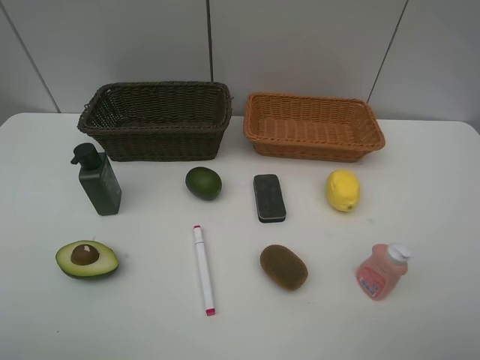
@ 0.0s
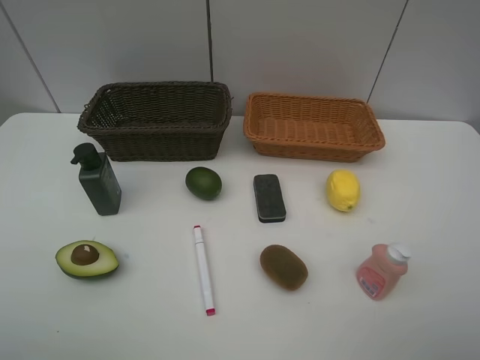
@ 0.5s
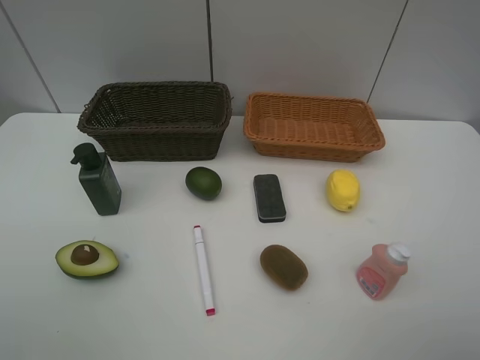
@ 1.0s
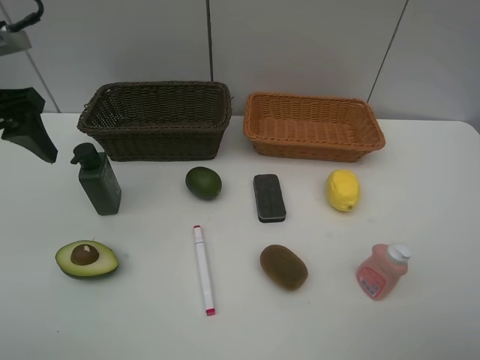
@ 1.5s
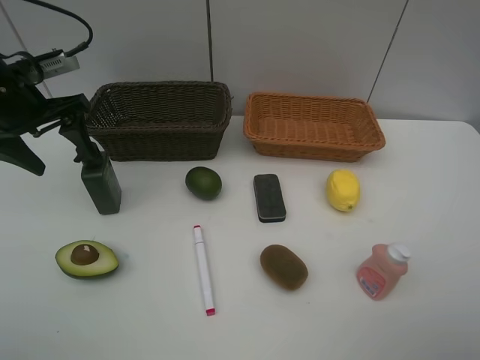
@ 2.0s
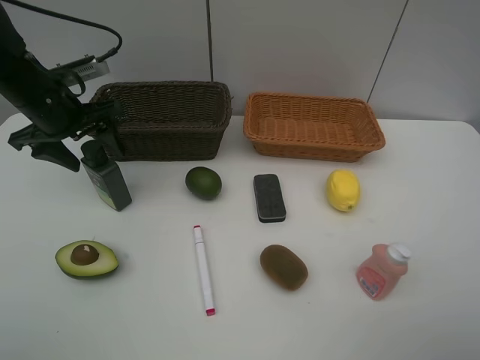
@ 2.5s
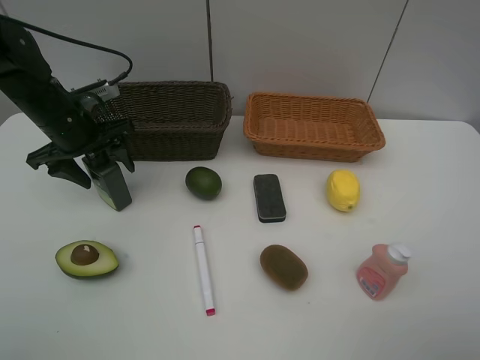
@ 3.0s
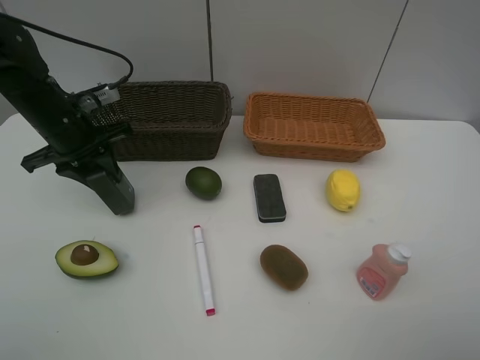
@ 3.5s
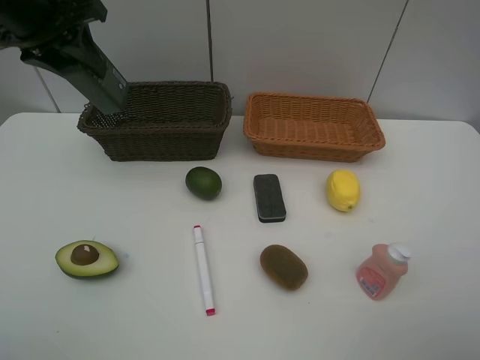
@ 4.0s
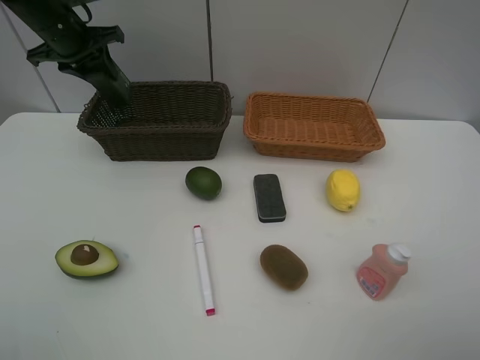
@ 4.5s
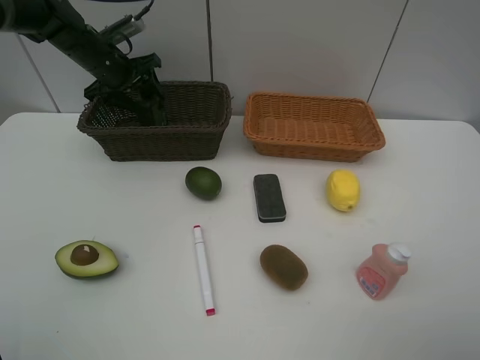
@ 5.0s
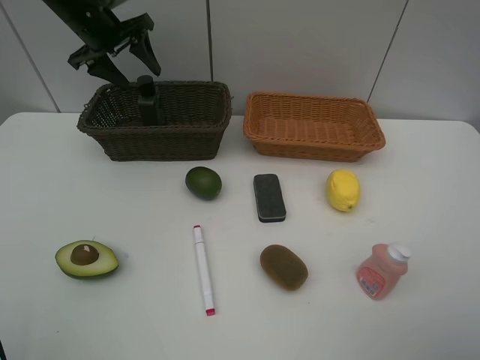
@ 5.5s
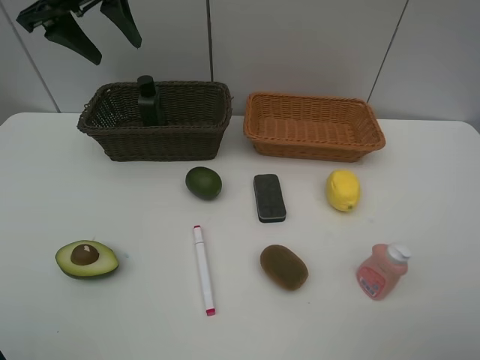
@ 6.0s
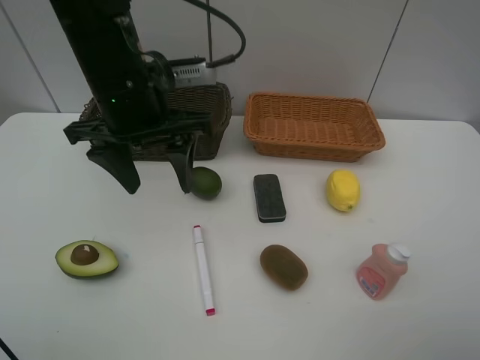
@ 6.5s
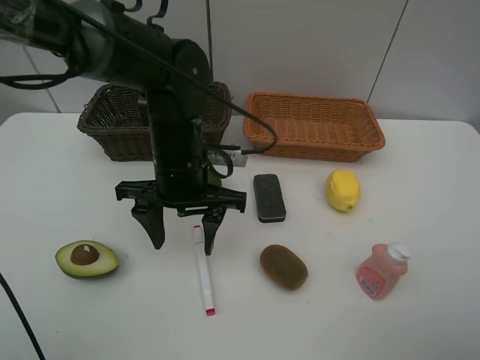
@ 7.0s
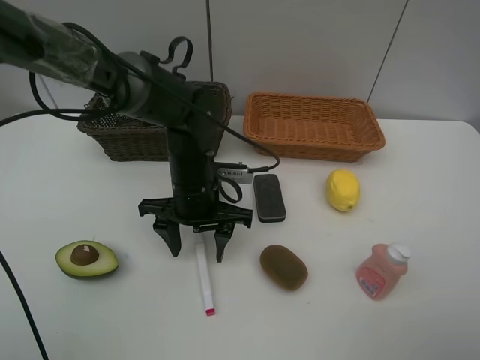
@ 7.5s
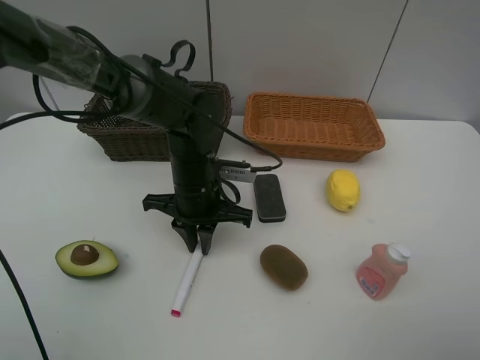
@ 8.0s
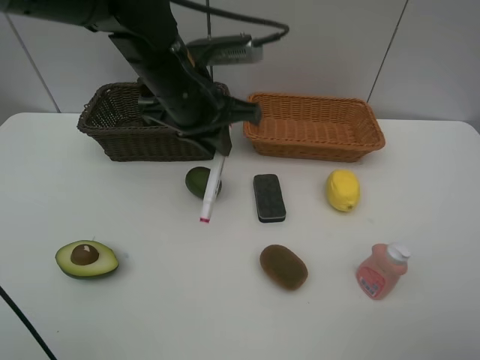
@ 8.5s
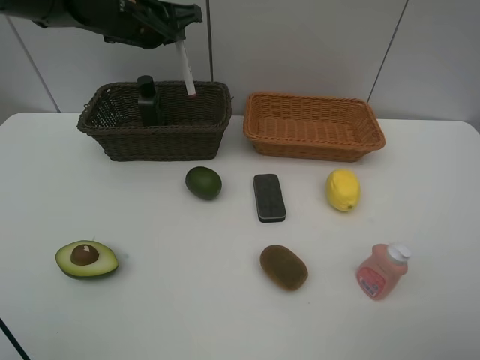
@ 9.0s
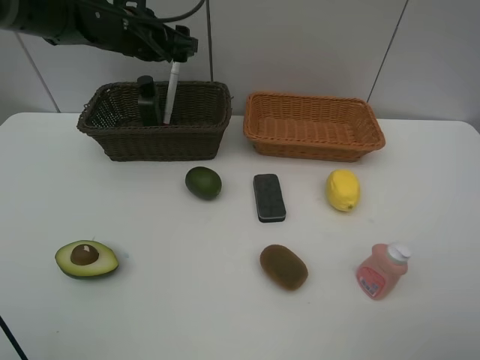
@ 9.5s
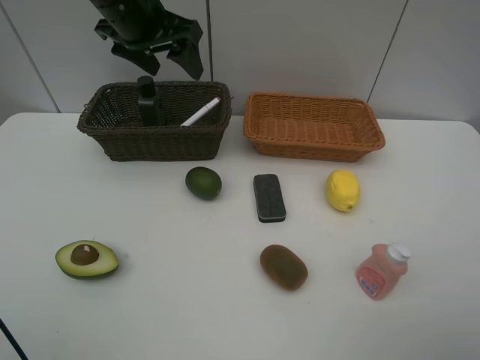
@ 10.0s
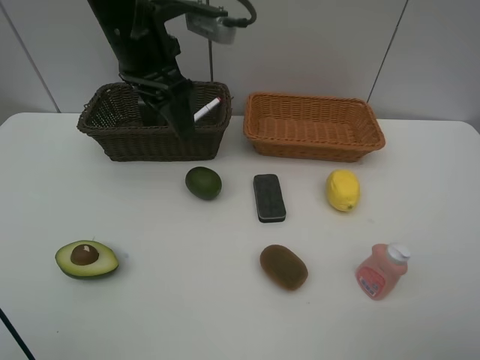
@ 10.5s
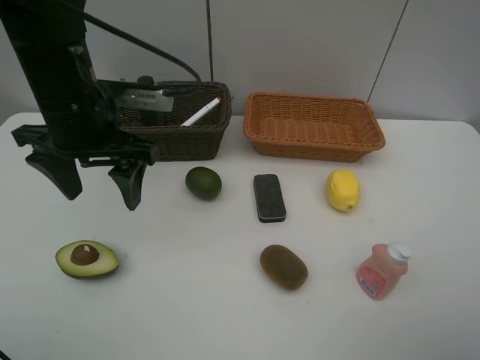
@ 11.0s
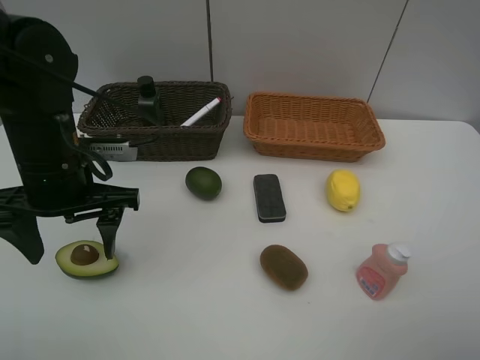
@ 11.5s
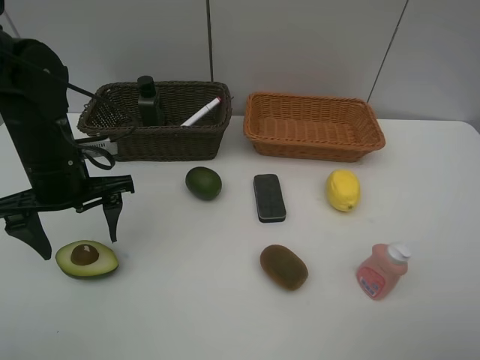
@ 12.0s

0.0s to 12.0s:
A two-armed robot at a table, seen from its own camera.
Task of the whole recording: Place multiple objects separately in different baskets.
Step, 0.0s to 3.5s: Pick up the hard facial cleanser with left gripper.
Step, 4.0s to 5.0s: Place the hard facial cleanser in the dark basket with left gripper.
Step, 5.5s to 8.0s: Pick up the red marker with left gripper.
Step, 8.5s to 9.5s: Place the red marker in the dark basket with left gripper.
0.0s to 2.0s: The left gripper moves forward, some 35 cm.
2.0s to 4.0s: The left gripper is displaced upward by roughly 10 cm, and closes.
4.0s to 6.0s: The left gripper travels downward and back again, some 15 cm each way, and opens its fingers.
6.0s to 8.0s: The left gripper heads downward, to the right and backward, covering approximately 30 cm, and closes its fingers.
8.0s to 10.0s: The left gripper goes approximately 25 cm upward, forward and to the left, and opens up.
10.0s to 12.0s: The left gripper shifts about 20 cm downward, backward and to the left.

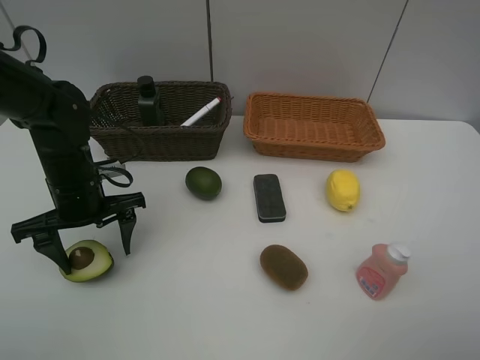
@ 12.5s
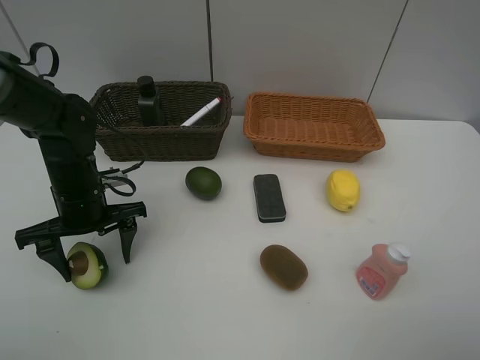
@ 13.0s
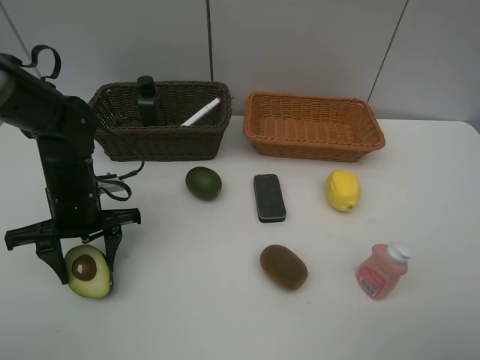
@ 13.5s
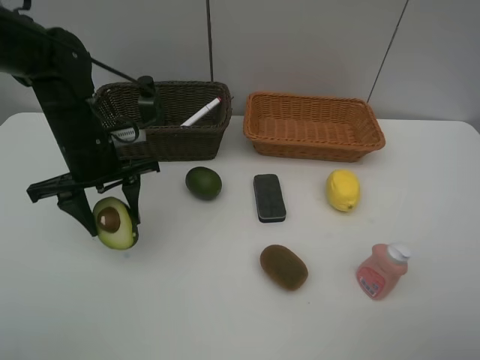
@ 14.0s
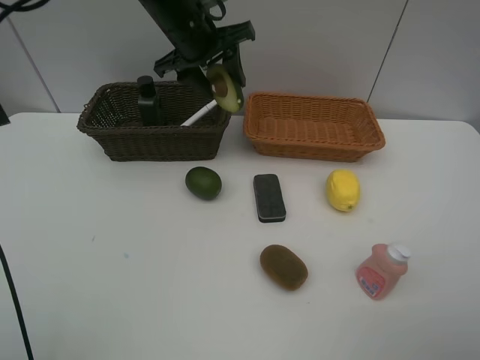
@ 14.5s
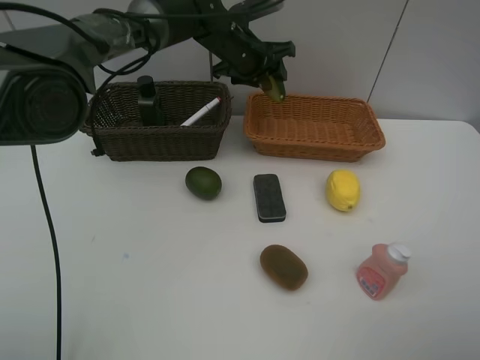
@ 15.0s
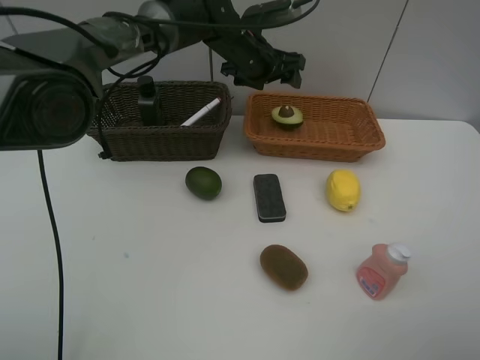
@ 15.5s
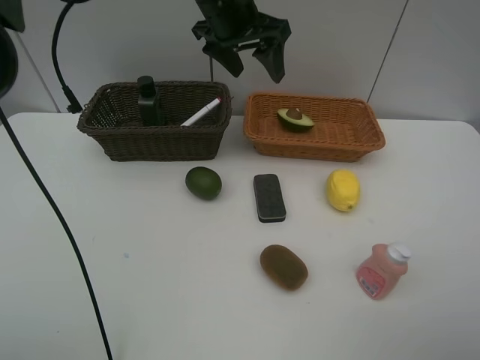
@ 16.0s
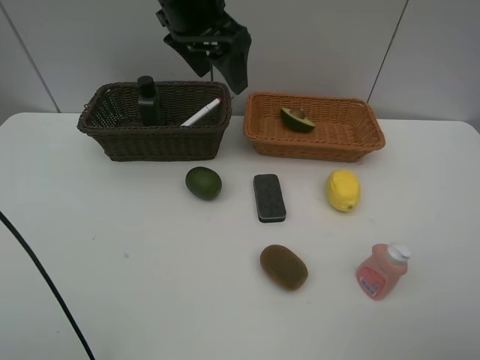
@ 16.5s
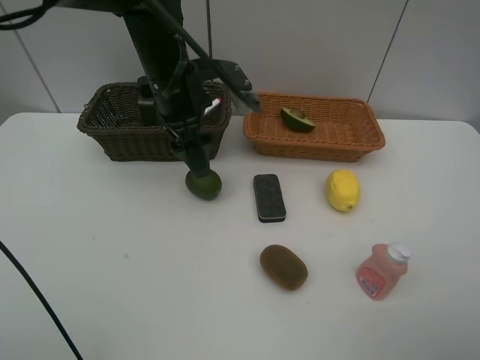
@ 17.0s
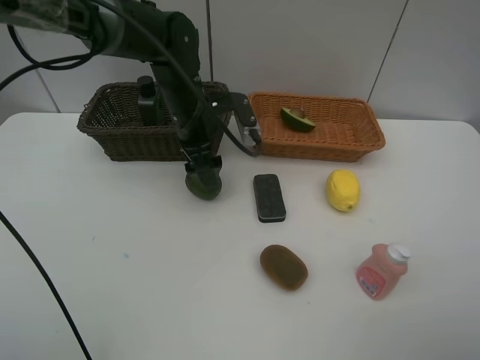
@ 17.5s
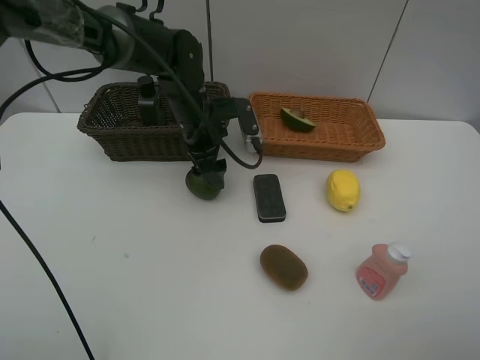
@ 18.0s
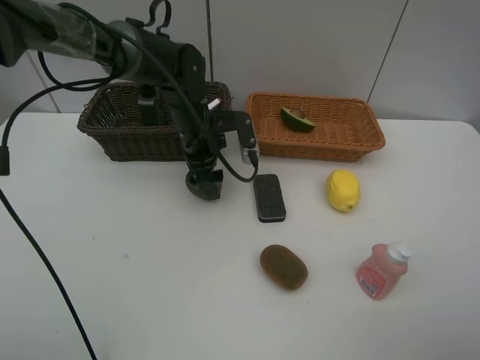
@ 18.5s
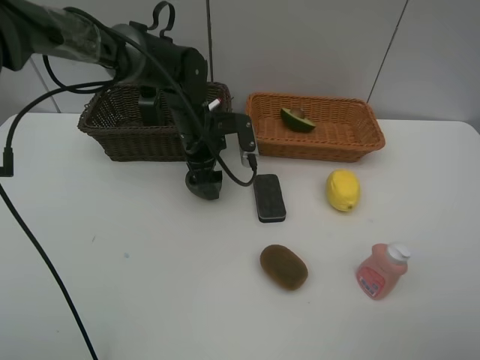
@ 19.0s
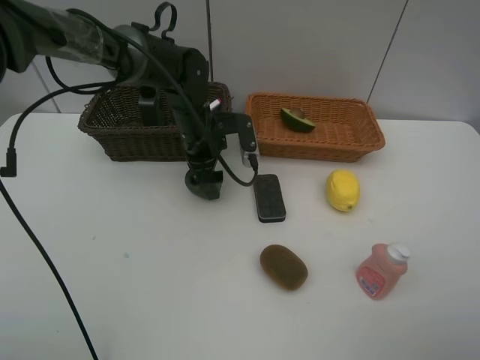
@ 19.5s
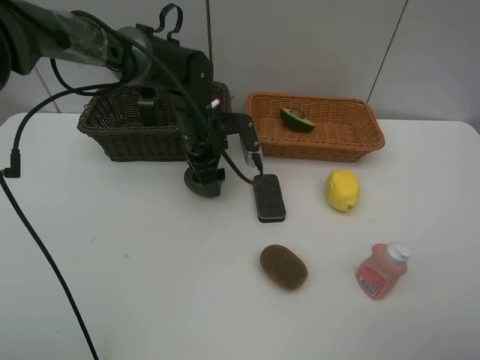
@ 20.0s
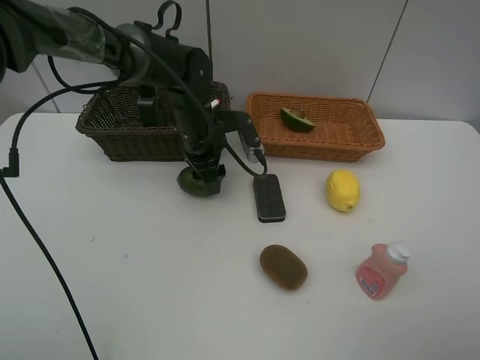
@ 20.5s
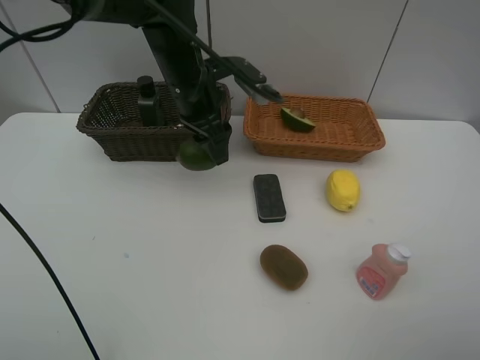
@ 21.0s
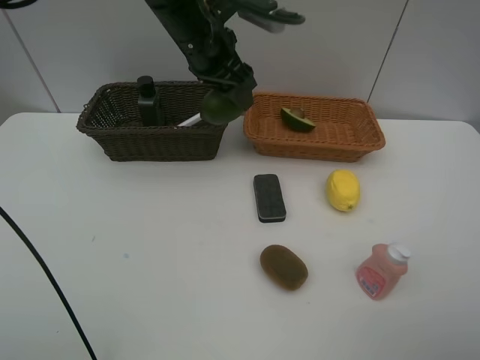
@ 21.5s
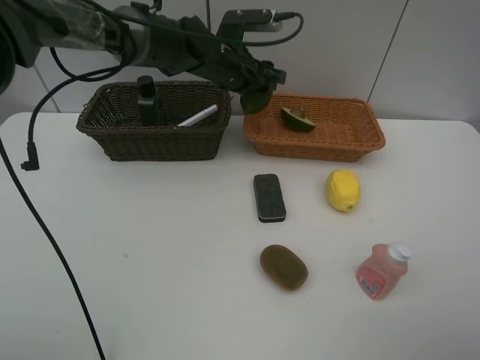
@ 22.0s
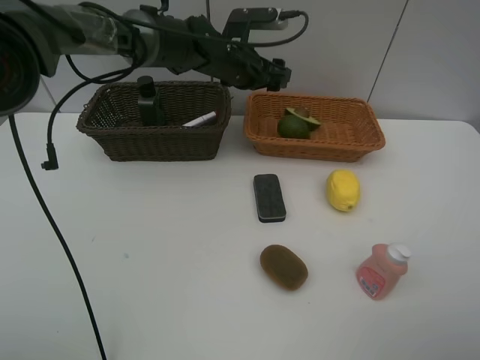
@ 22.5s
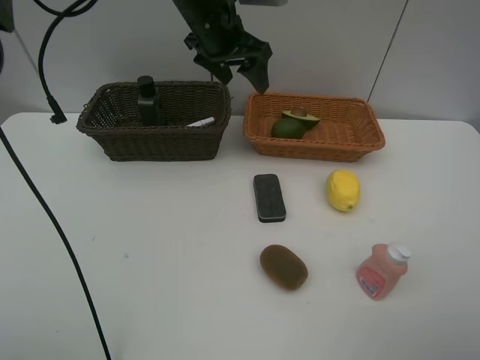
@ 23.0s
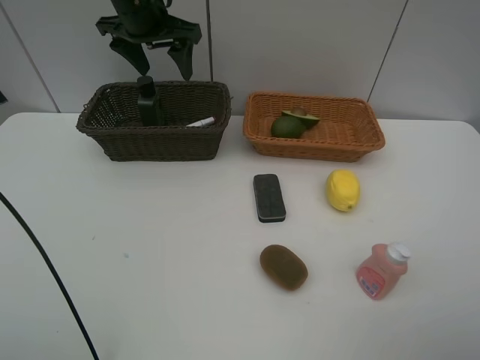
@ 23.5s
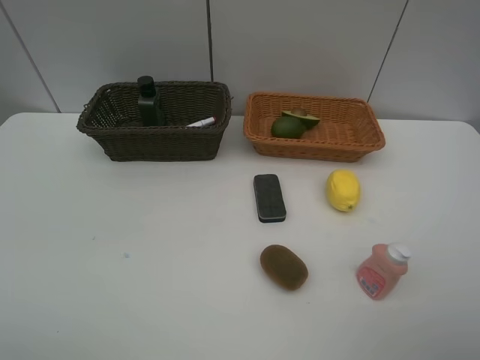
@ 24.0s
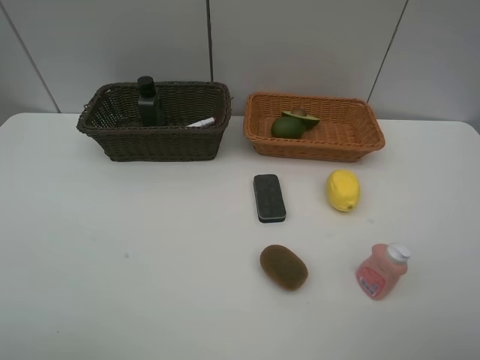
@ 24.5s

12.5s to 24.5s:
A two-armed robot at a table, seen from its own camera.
Task of the whole recording: Place multiple objects separately in different baskets.
Step, 14.0s to 15.0s: Place the avocado in the light basket with left gripper.
Step, 15.5s to 20.5s: Pick up the lime with left gripper.
Step, 21.0s to 22.0s: Place the lime in the light basket with left gripper.
12.5s to 14.5s: The left gripper shifts some 25 cm forward, upward and to the right.
14.5s to 16.5s: The left gripper travels backward and upward by some 10 cm.
16.5s to 18.5s: The left gripper heads downward, covering roughly 20 cm.
18.5s to 20.5s: The grippers make only small movements.
20.5s to 22.5s: The left gripper is displaced forward and upward by approximately 10 cm.
22.5s to 24.5s: The left gripper travels backward and to the left by about 60 cm.

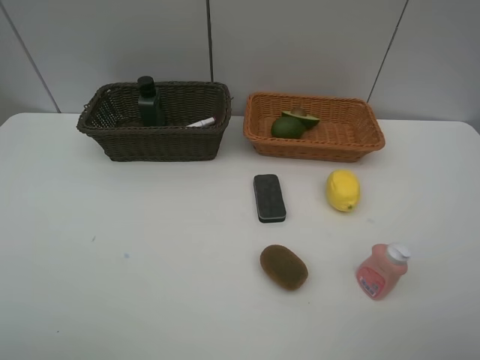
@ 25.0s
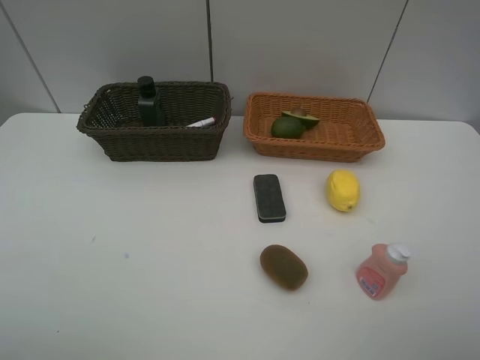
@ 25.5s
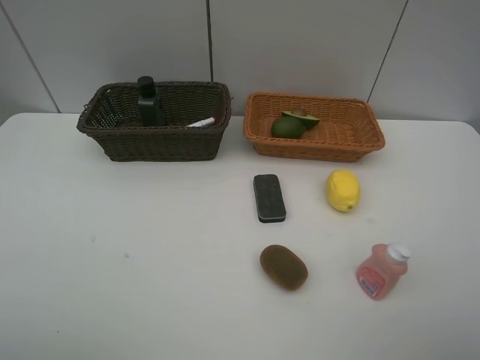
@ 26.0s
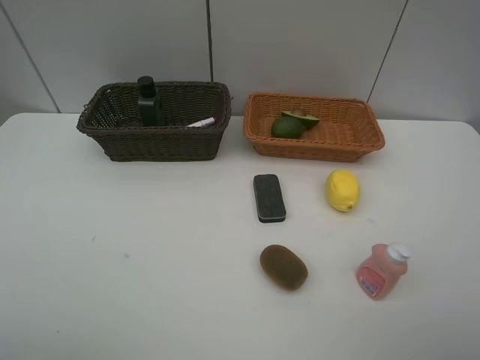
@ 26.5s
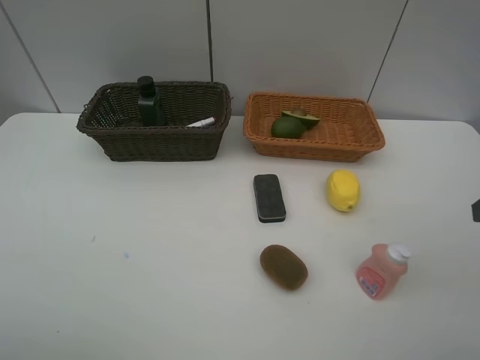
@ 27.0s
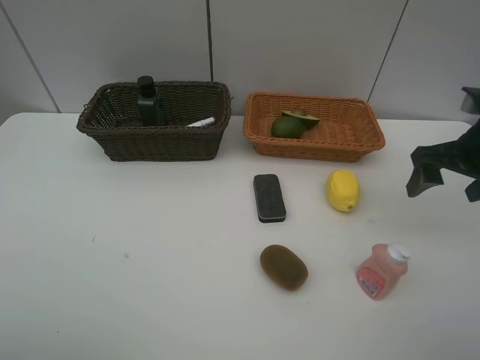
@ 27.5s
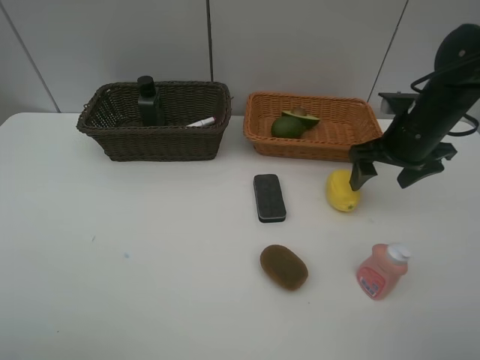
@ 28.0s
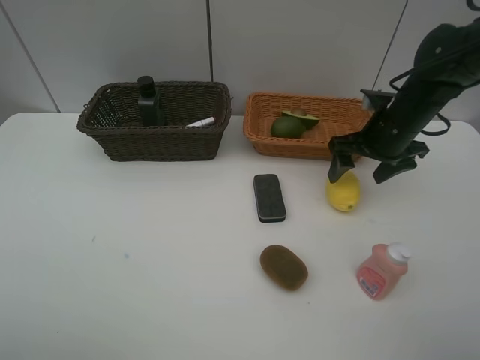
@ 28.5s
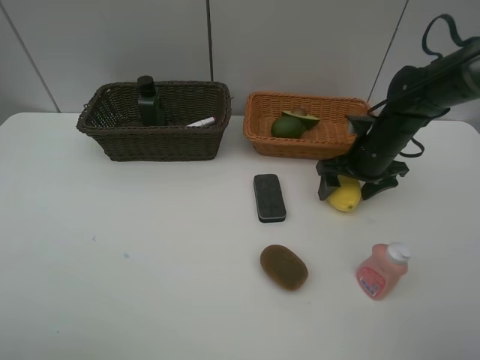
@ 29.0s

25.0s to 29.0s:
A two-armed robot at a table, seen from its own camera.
Task of the whole recording: Place multiple objects separately in different baskets.
27.0s to 29.0s: The right gripper is displaced forward, downward and to the left by roughly 25 cm.
